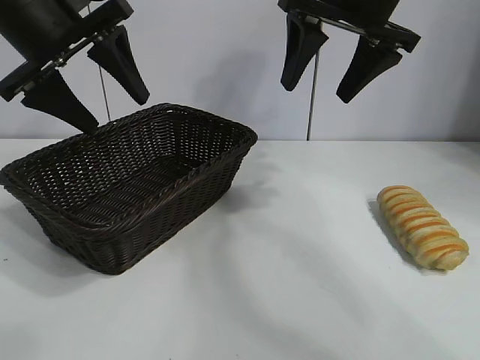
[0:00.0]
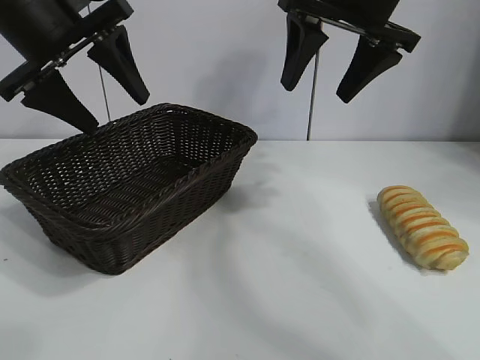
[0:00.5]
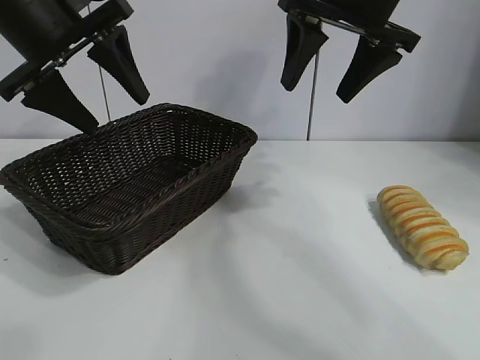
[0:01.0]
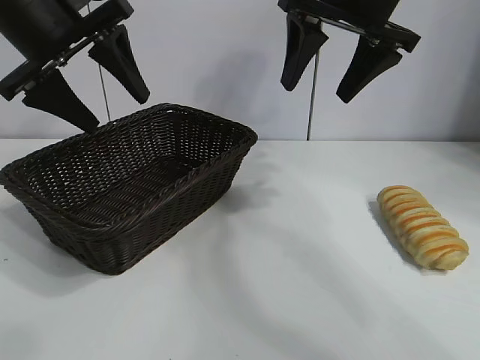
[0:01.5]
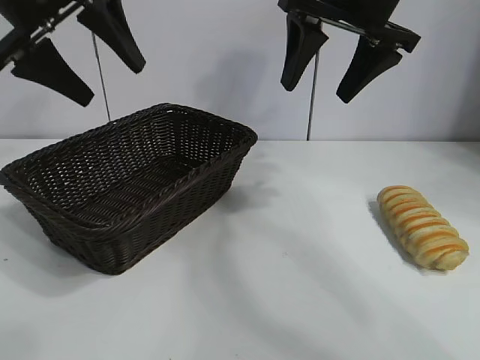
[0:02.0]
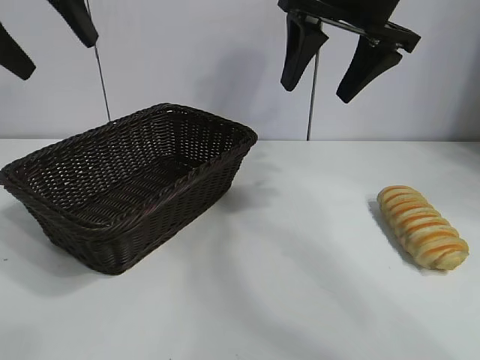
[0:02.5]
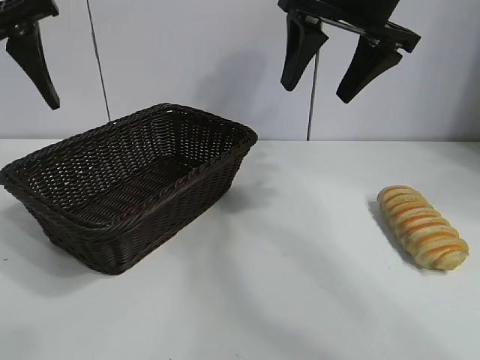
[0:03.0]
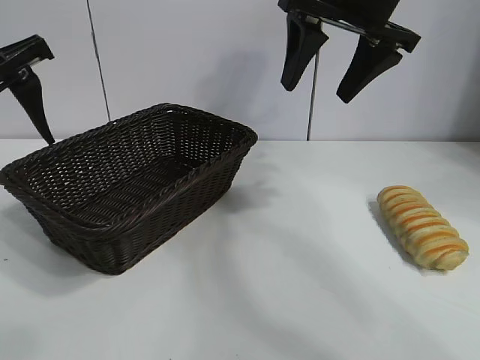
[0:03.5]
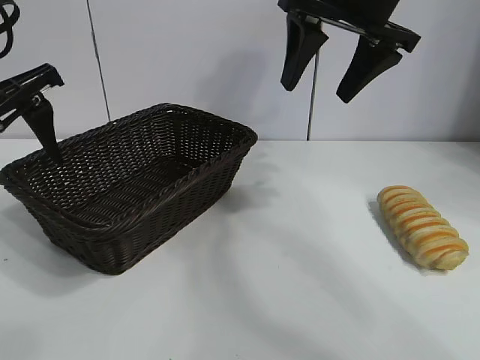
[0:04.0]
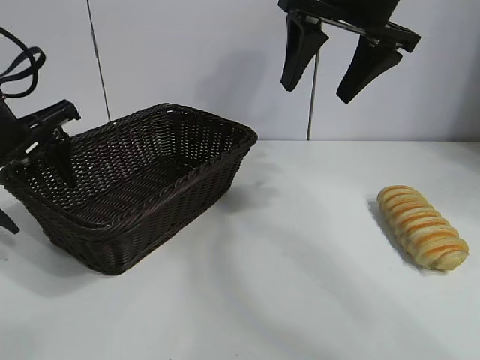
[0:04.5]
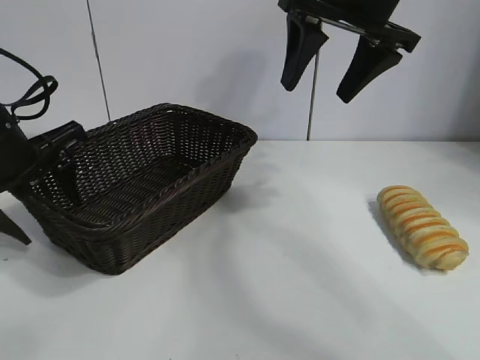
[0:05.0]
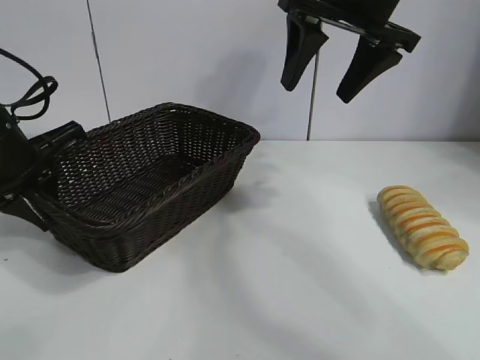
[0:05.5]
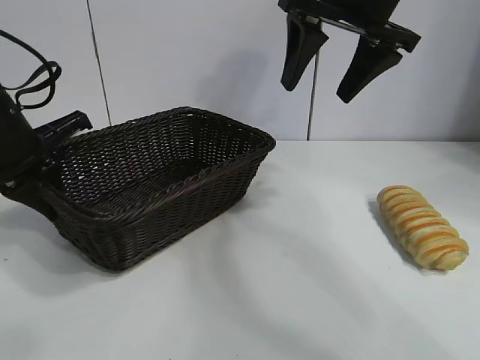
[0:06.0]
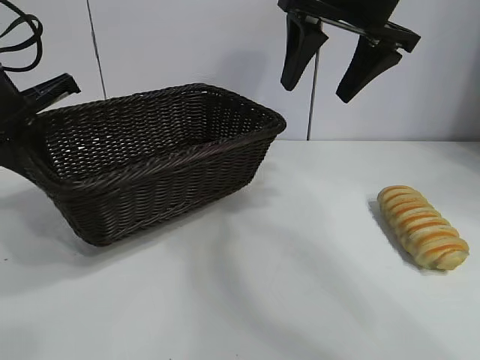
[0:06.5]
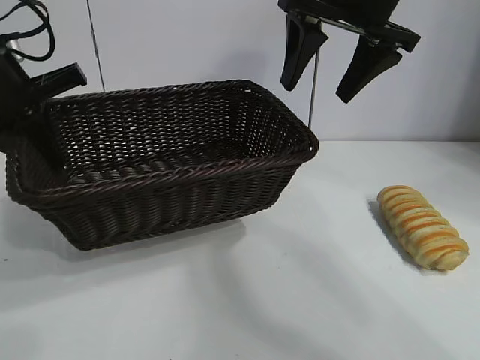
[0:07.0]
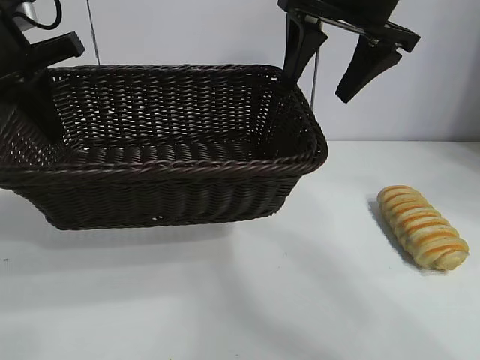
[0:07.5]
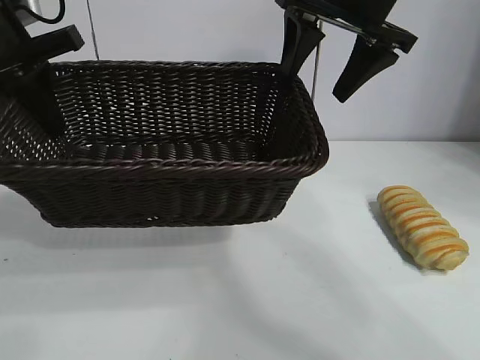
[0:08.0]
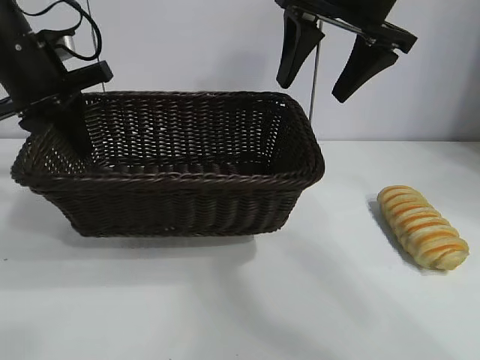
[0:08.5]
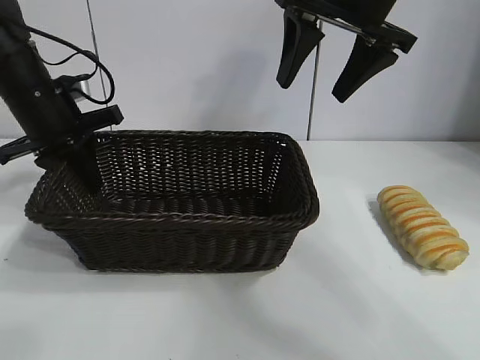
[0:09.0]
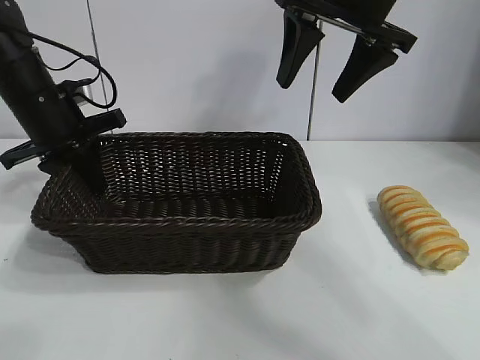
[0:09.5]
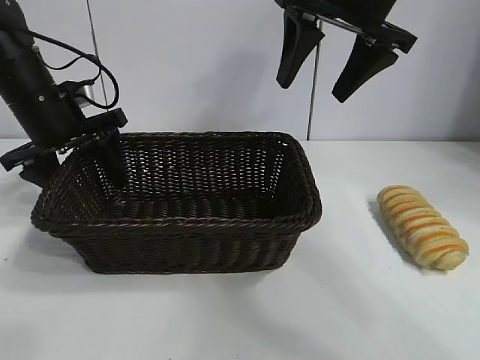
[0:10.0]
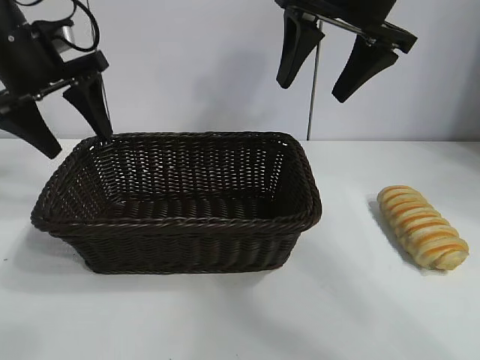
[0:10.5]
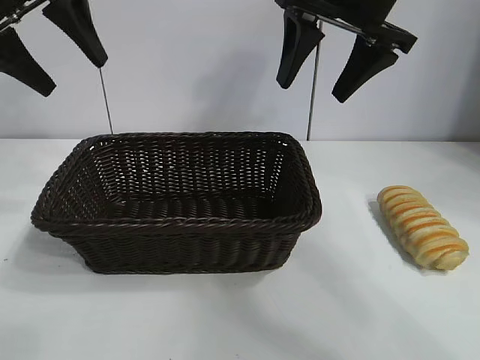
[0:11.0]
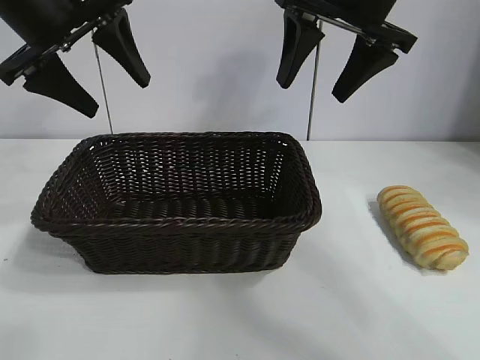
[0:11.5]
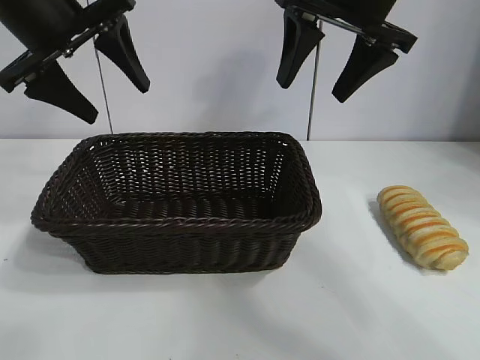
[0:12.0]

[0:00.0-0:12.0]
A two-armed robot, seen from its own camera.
Task of the whole recording: pick up the long bread and put it into the basket.
Step, 0:01.5 to 0:05.5: Grasp the basket with the left gripper.
Step, 0:06.0 to 0:10.0: Place the basket in the center of the table with the left gripper.

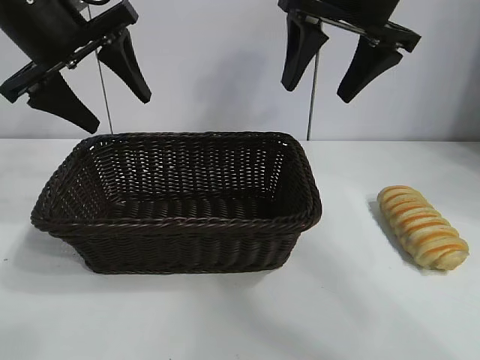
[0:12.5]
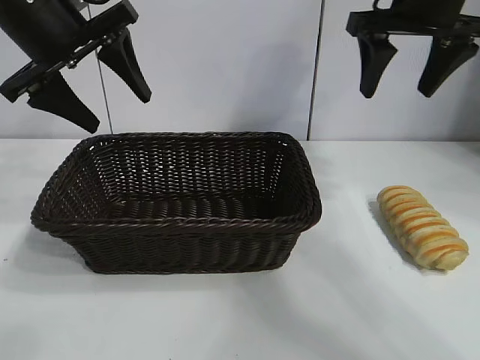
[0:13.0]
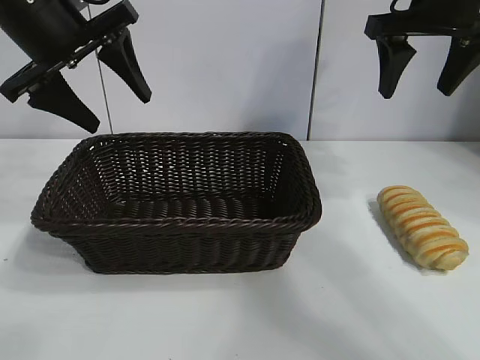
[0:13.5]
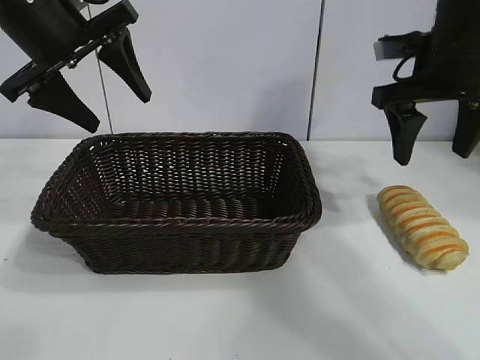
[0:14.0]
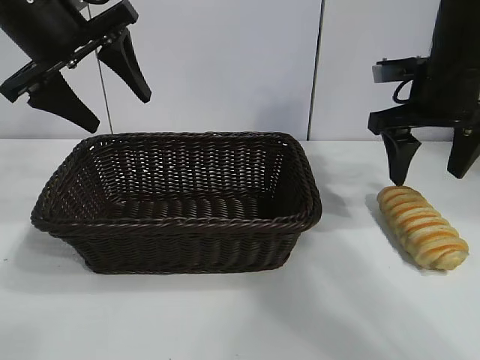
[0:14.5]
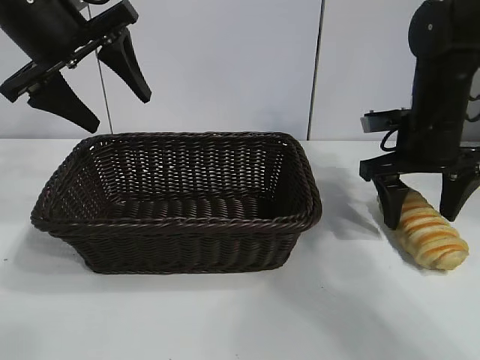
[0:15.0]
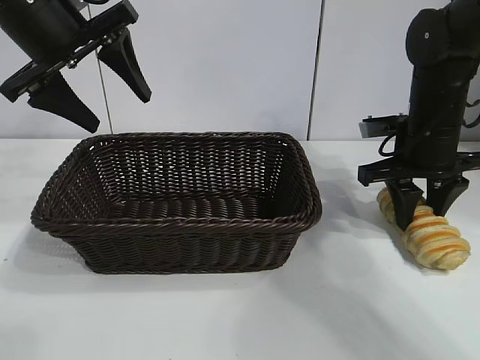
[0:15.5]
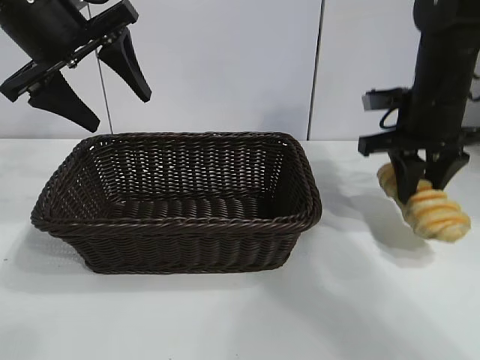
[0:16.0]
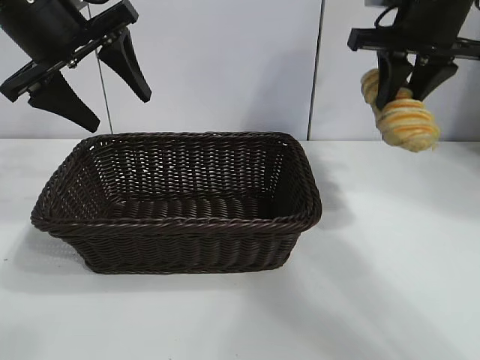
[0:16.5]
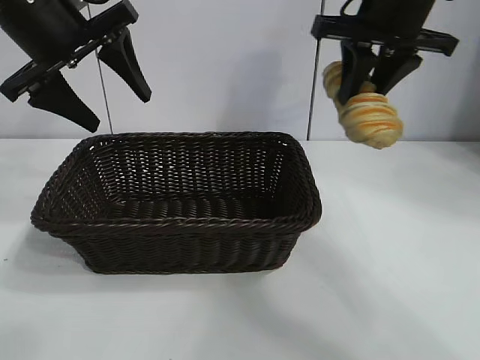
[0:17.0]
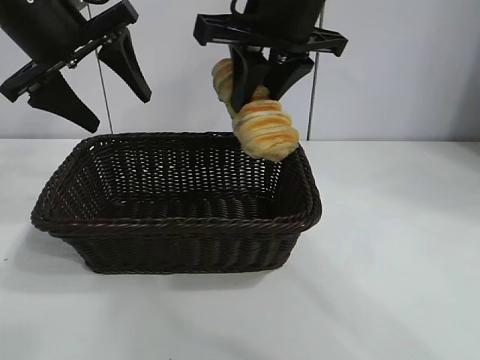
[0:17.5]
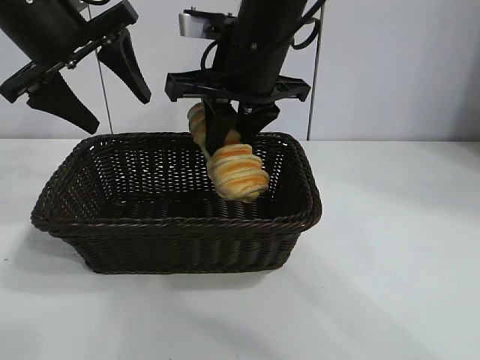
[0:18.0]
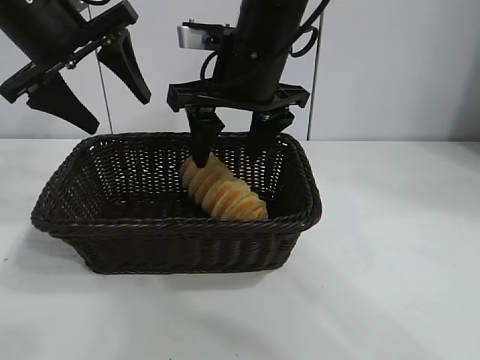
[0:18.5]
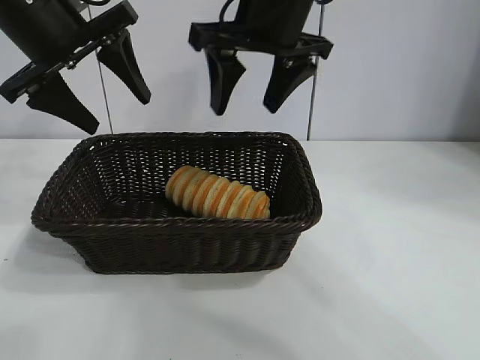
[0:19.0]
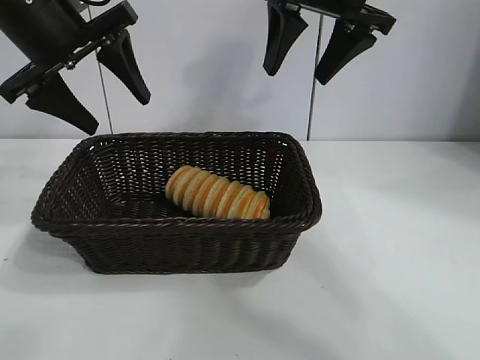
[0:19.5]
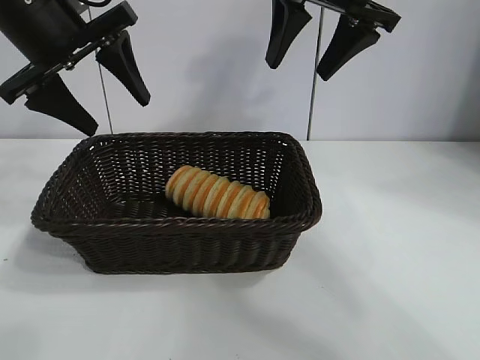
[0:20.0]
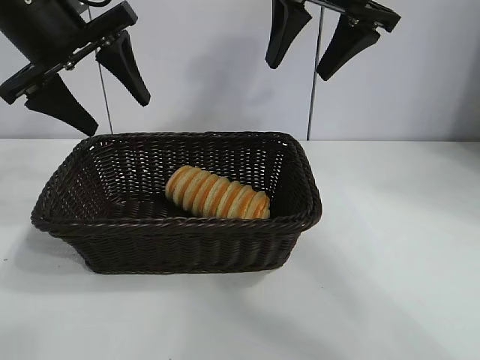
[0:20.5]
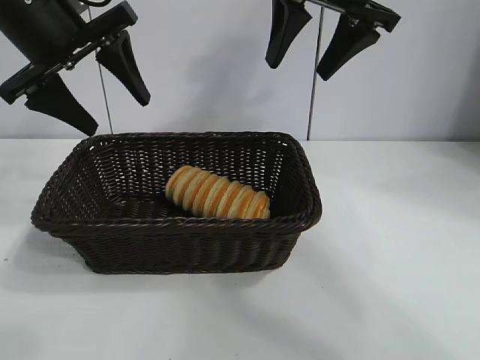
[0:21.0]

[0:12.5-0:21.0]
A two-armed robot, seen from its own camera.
Task of the whole recording: pick up the long bread and put it into the basket.
Step, 0:12.5 to 0:15.5: Grasp the long bread with right gripper.
Step, 0:16.0 to 0:18.5: Place the long bread in the basket with right gripper.

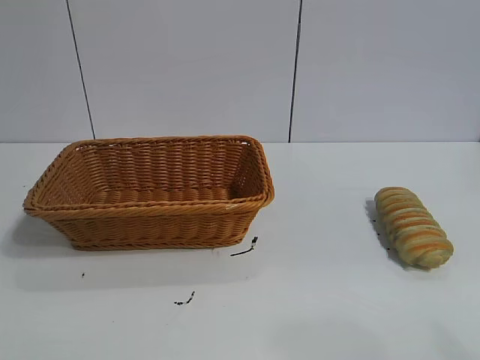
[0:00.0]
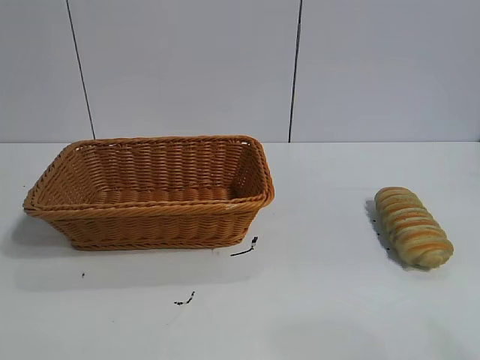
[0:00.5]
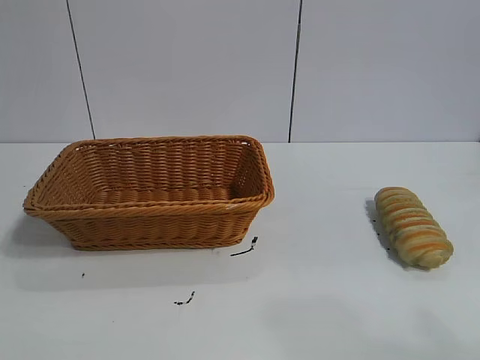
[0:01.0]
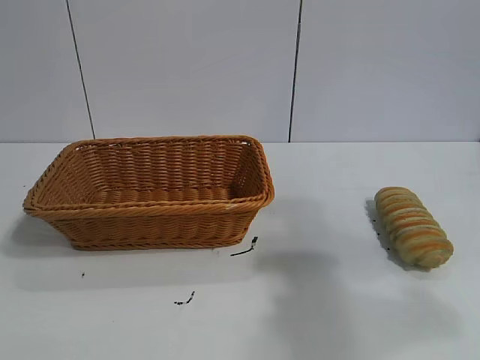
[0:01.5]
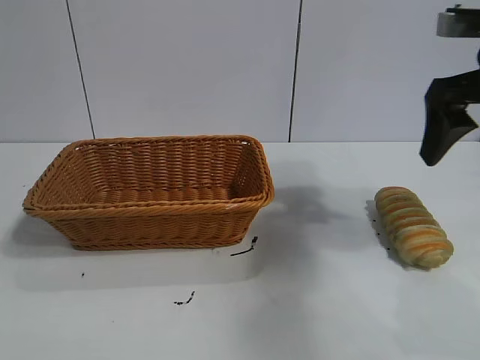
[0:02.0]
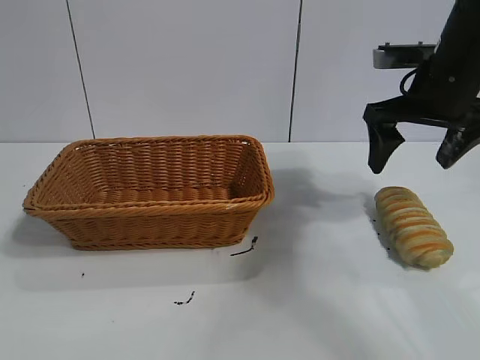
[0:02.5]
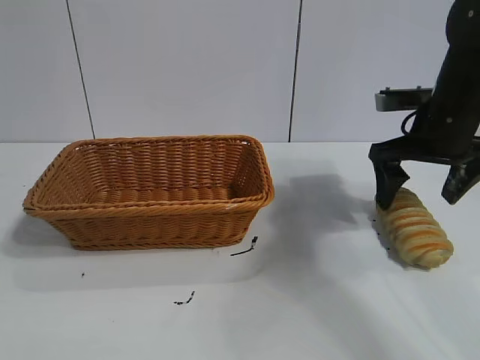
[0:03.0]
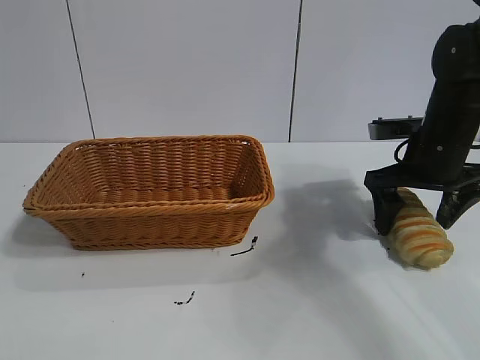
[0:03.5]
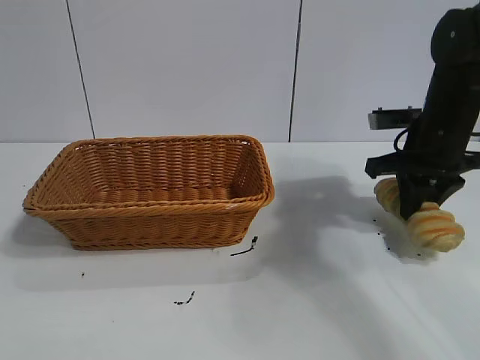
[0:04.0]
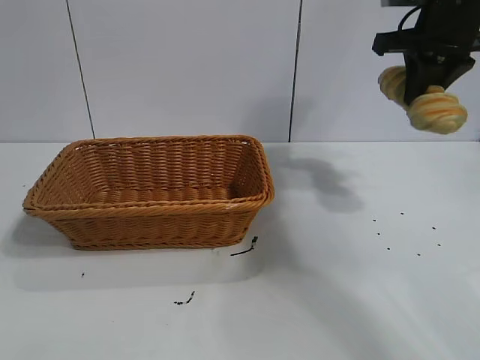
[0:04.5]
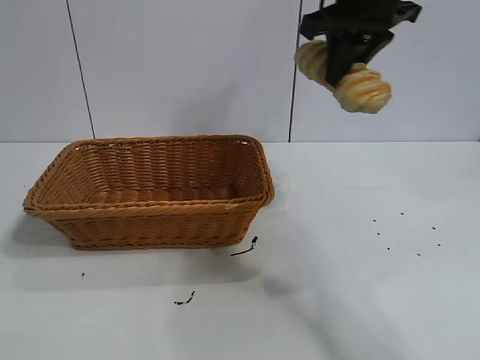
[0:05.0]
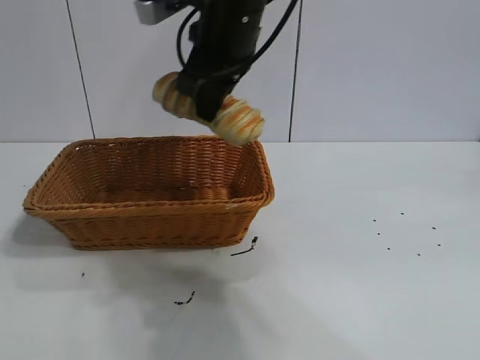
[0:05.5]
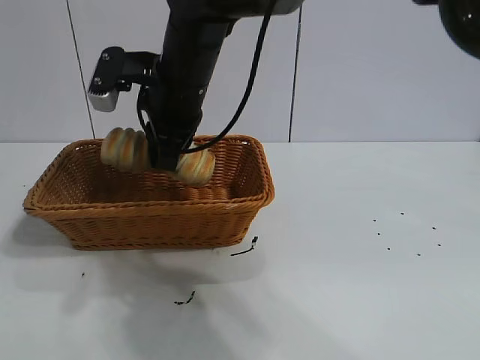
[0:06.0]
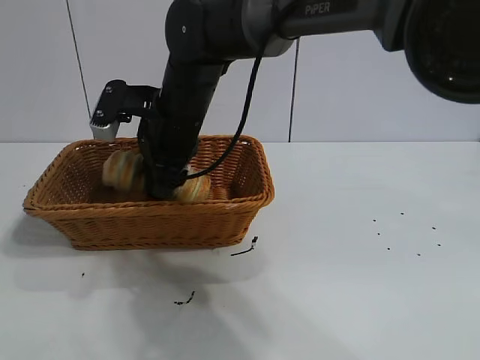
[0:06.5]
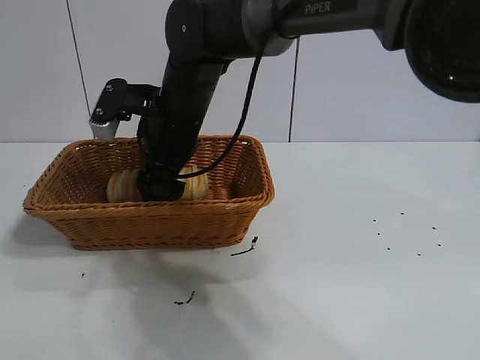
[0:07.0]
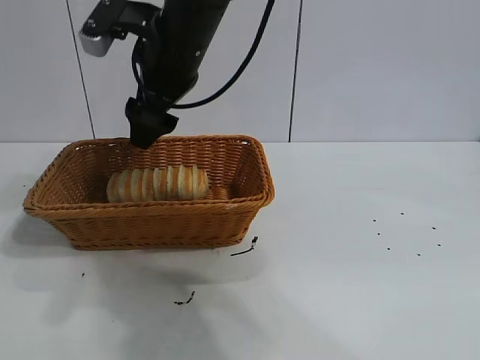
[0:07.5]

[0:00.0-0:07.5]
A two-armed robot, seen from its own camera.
Task of the whole recording: pick up the long bread and put it into the basket.
Step, 0:02.0 to 0:03.5: Grasp the long bread with right gripper.
Step, 0:04.5 to 0:07.0: Place the long bread in the basket with right gripper.
